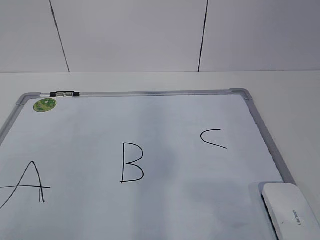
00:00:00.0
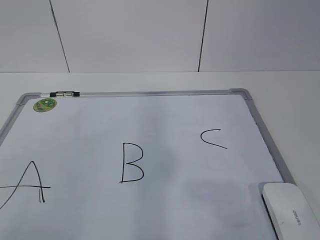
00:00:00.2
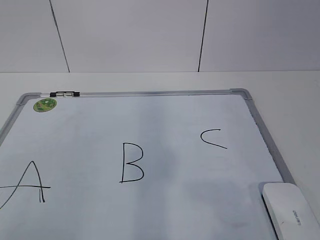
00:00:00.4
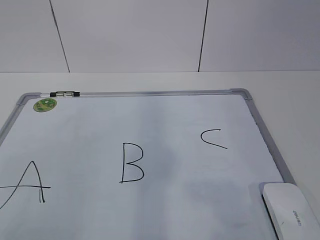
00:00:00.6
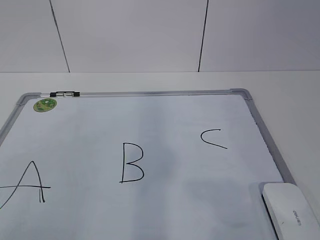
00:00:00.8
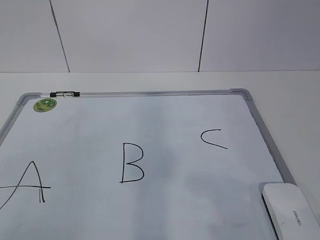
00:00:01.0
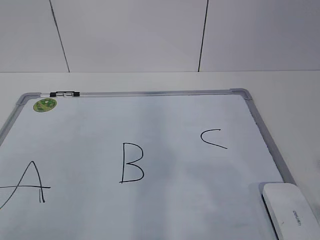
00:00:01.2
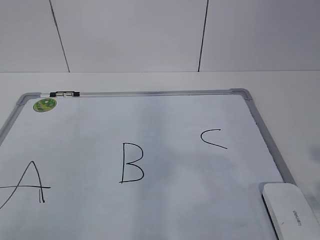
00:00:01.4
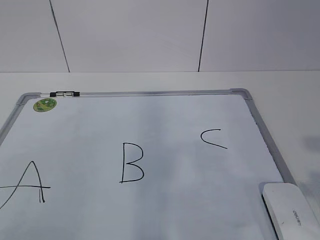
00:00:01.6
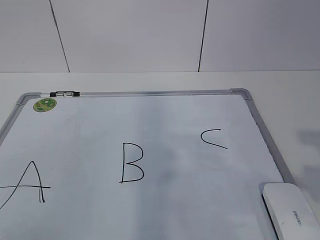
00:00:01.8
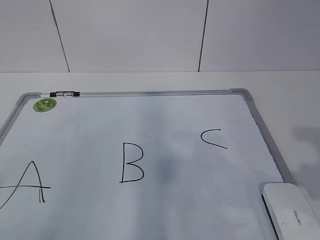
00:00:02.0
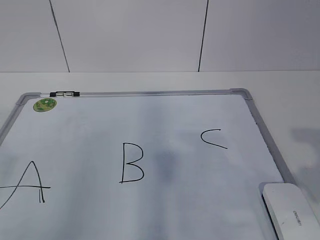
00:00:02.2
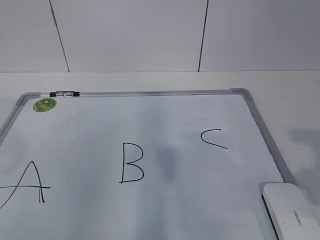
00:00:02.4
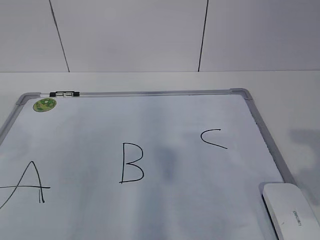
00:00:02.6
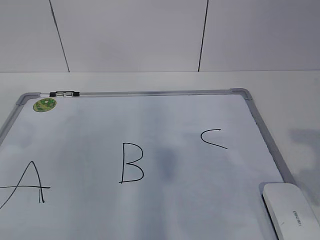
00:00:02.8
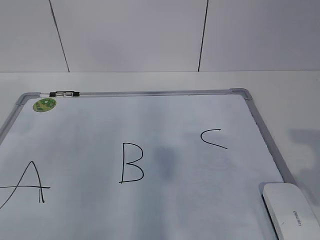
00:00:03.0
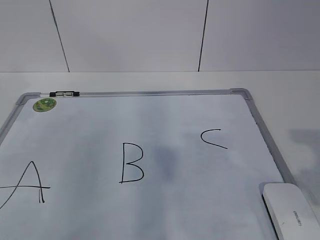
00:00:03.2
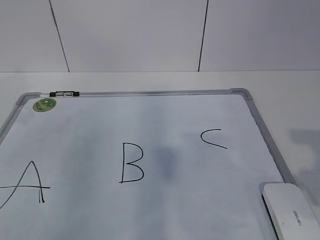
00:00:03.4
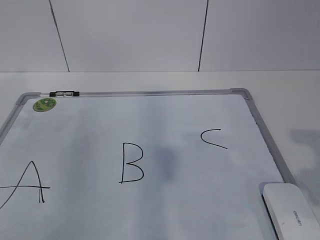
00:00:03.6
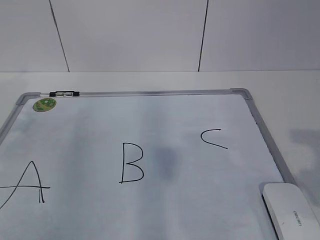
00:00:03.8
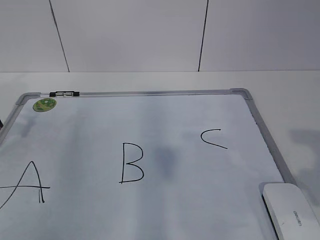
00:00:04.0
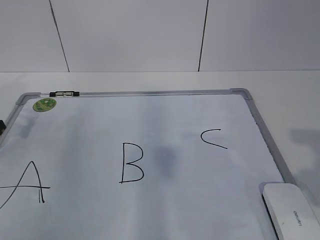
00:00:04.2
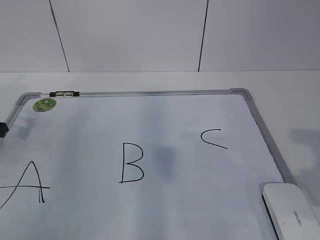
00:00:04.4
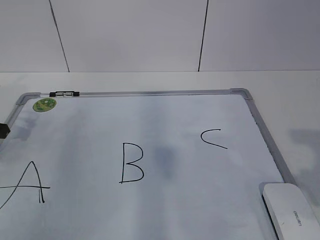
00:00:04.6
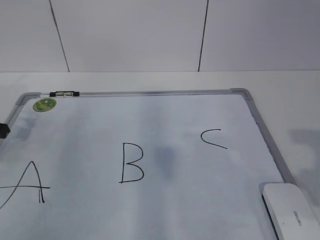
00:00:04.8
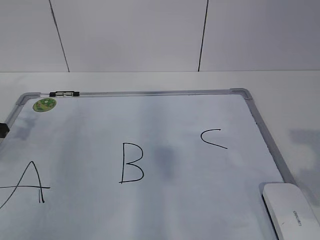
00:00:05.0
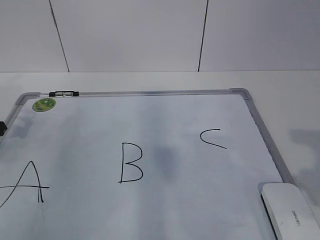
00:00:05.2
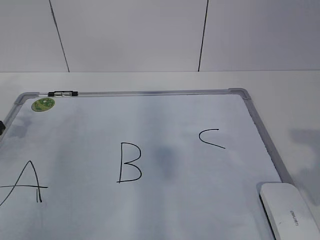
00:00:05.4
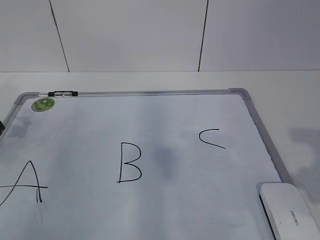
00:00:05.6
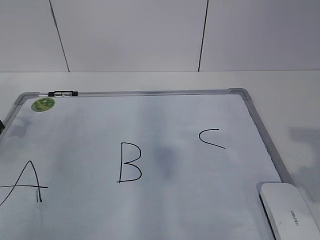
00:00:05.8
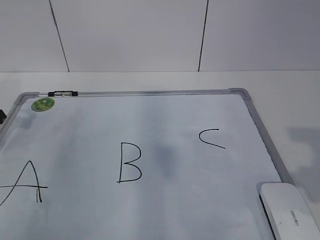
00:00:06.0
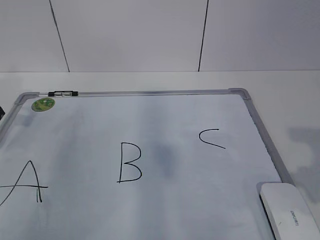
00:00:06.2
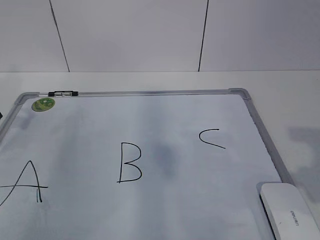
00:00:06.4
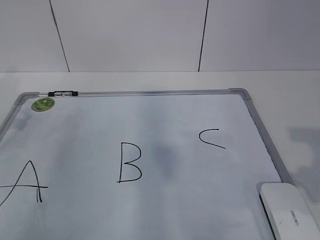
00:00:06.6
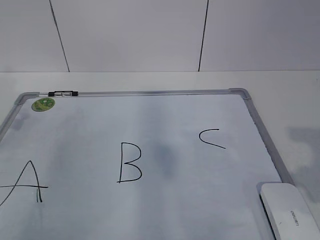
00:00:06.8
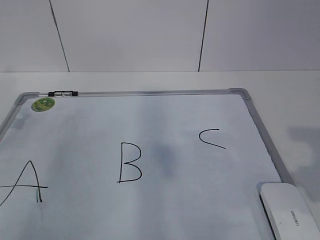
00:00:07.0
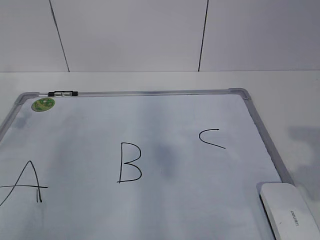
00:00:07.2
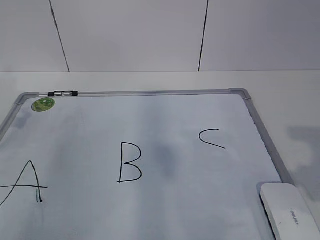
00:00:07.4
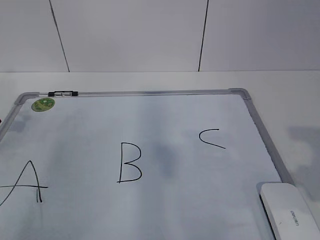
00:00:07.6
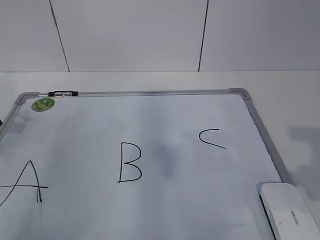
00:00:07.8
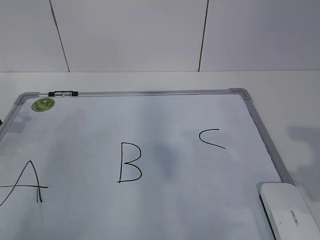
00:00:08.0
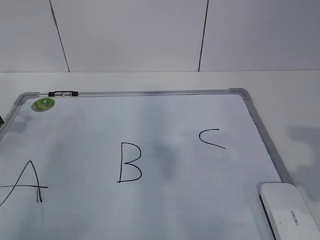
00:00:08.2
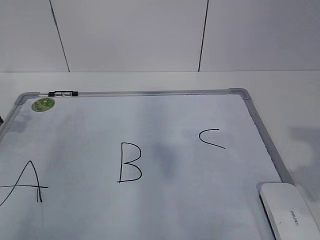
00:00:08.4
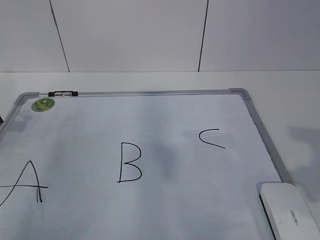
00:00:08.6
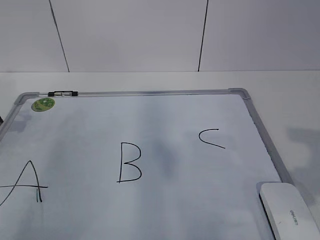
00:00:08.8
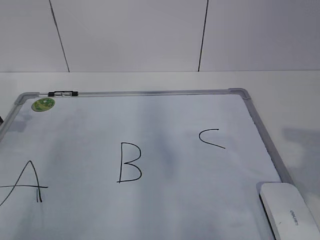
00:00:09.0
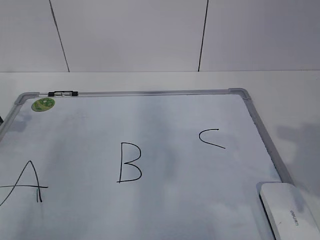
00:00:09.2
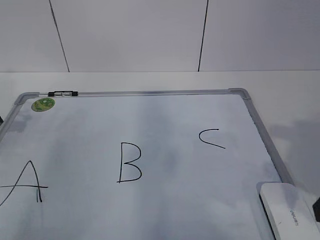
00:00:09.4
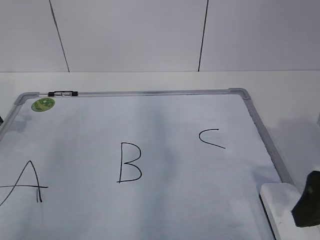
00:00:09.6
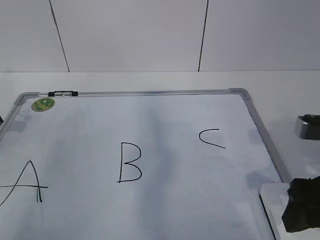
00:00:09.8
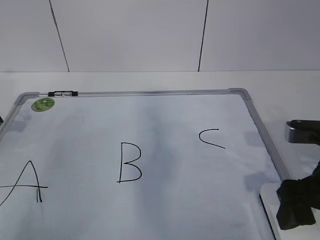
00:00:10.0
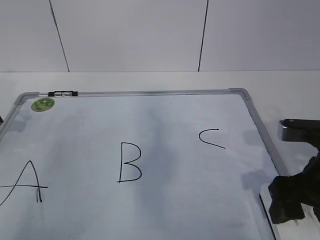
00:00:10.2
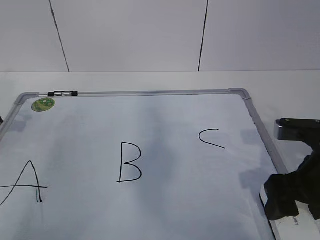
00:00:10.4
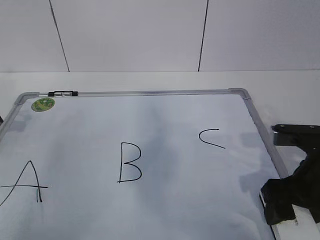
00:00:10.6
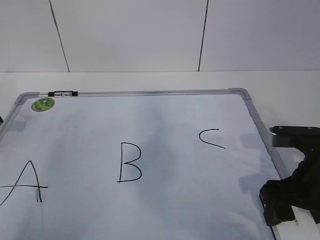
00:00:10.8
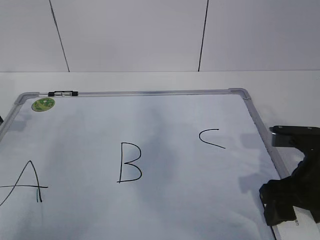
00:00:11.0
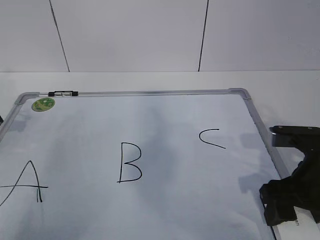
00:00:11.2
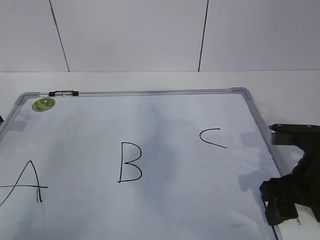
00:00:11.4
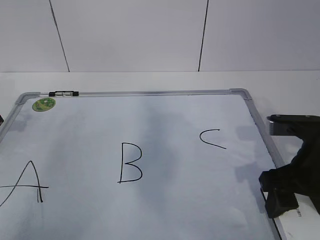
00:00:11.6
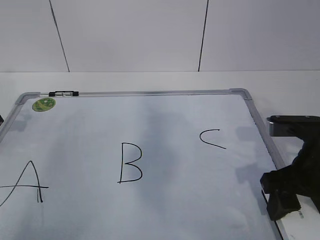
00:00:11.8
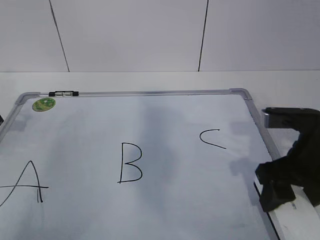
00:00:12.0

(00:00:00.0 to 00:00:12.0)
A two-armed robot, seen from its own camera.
Task of the whole recording: pick up the eraser on the blackboard and erase the letter "B".
Step, 00:00:00.0 - 00:00:06.8: Hold the drawing board steady with your left hand.
00:00:01.6 - 00:00:03.0: The left gripper is displaced forward by some 25 cm.
00:00:03.0 - 00:00:04.4: The left gripper heads downward and forward, covering approximately 15 cm.
00:00:04.4 - 00:00:06.0: The grippers make only small movements.
00:00:09.0 - 00:00:10.4: The right gripper goes roughly 15 cm forward, downward and to the left, and opens its fingers.
00:00:10.4 - 00:00:12.0: The right gripper closes up.

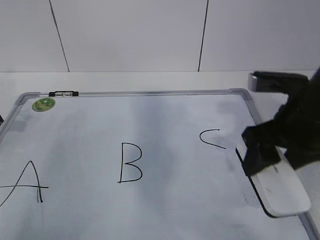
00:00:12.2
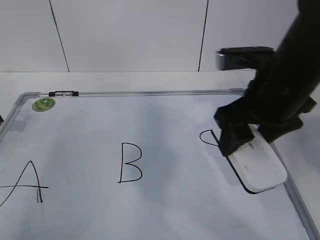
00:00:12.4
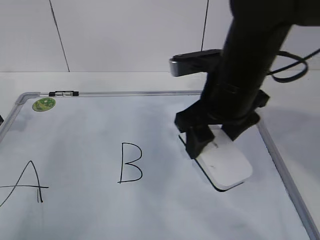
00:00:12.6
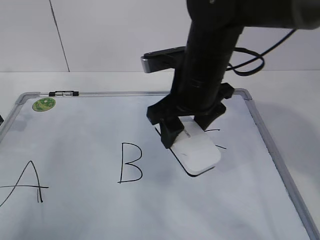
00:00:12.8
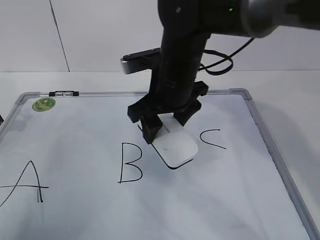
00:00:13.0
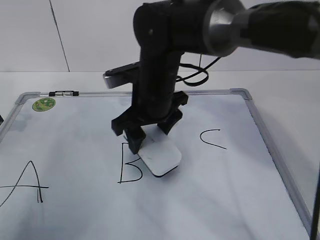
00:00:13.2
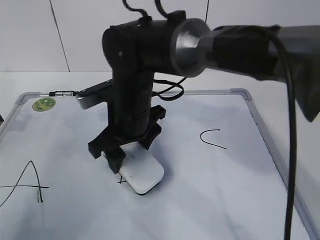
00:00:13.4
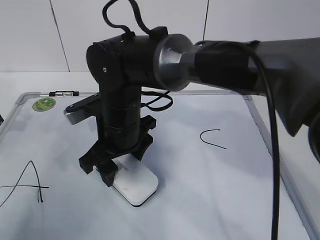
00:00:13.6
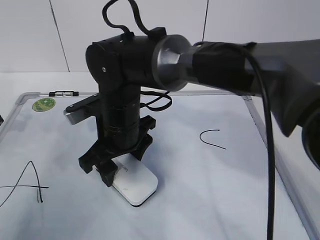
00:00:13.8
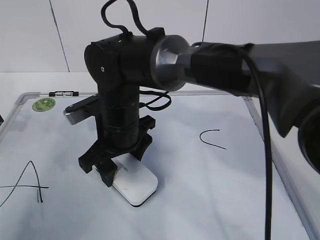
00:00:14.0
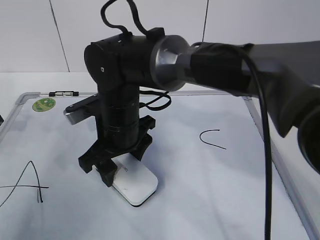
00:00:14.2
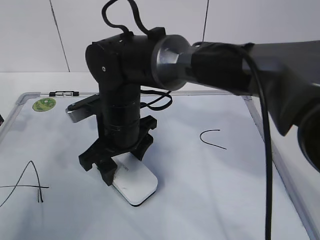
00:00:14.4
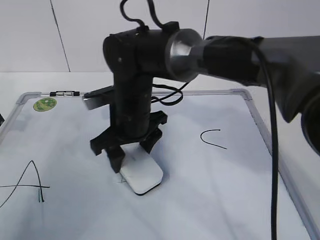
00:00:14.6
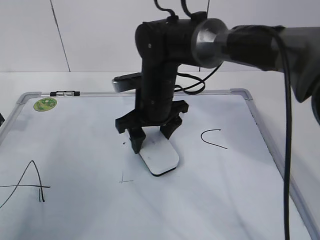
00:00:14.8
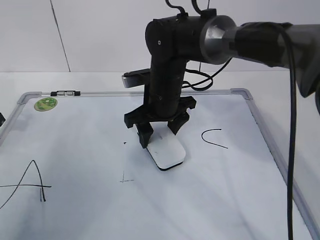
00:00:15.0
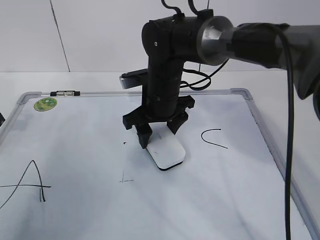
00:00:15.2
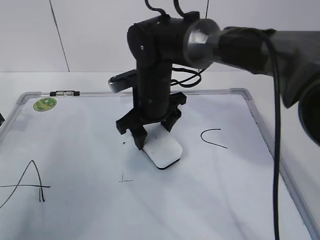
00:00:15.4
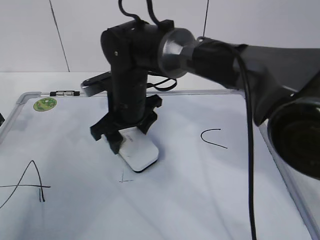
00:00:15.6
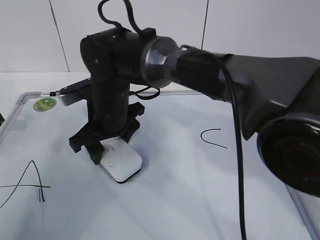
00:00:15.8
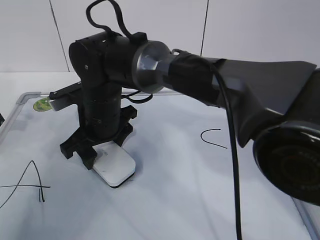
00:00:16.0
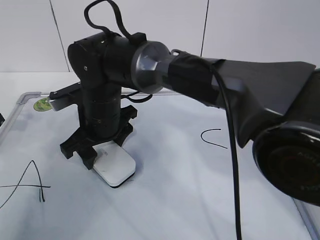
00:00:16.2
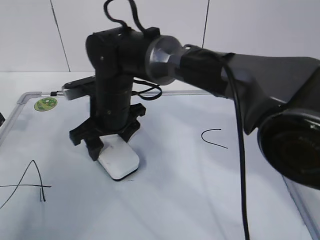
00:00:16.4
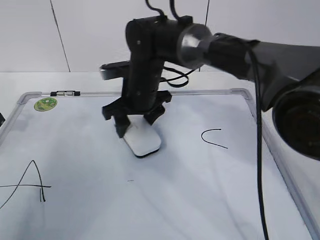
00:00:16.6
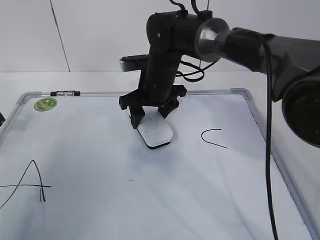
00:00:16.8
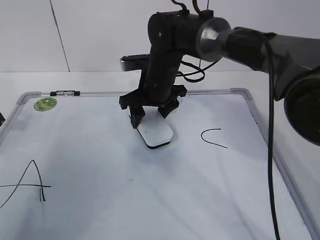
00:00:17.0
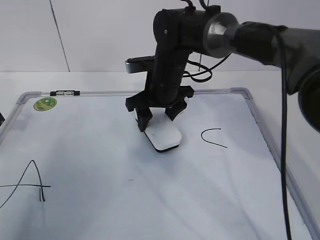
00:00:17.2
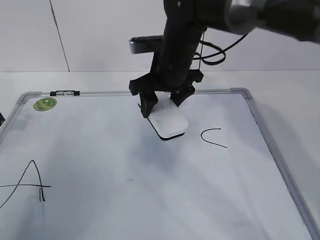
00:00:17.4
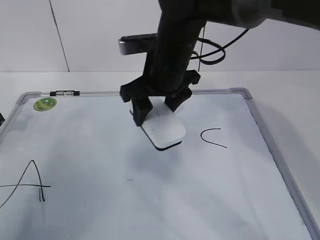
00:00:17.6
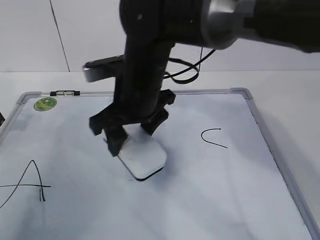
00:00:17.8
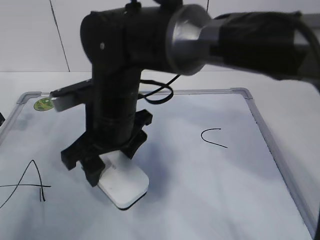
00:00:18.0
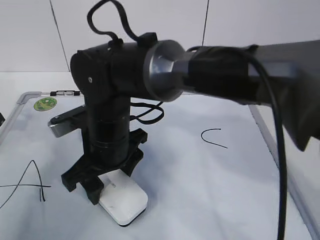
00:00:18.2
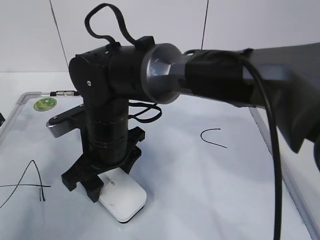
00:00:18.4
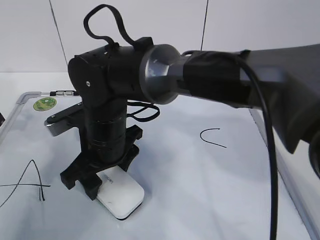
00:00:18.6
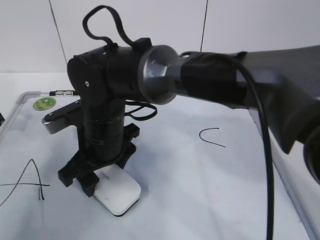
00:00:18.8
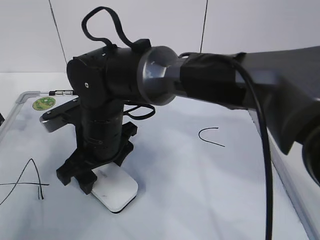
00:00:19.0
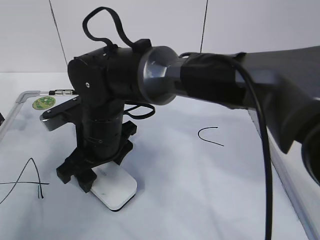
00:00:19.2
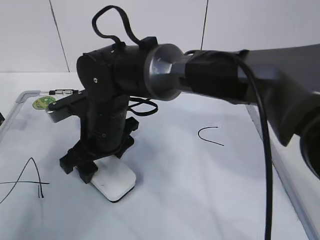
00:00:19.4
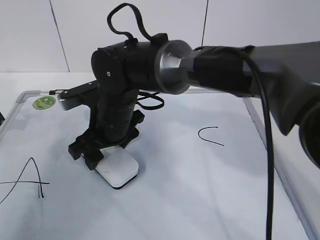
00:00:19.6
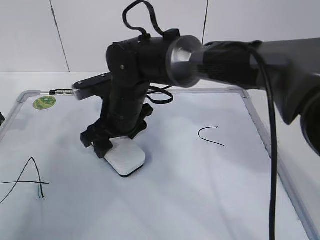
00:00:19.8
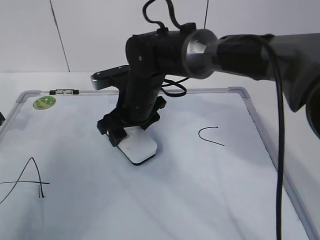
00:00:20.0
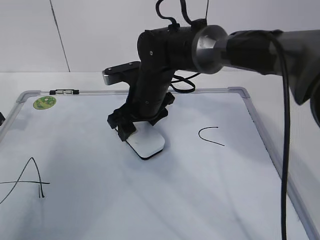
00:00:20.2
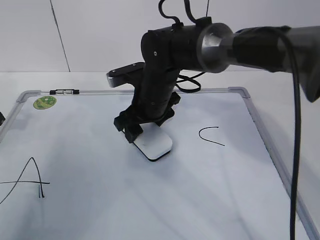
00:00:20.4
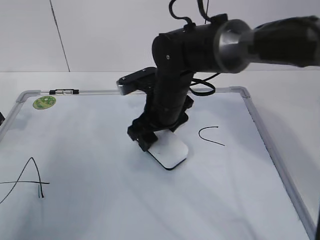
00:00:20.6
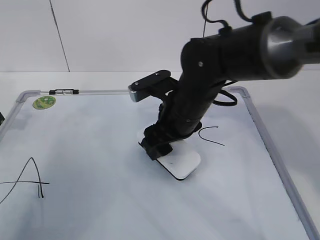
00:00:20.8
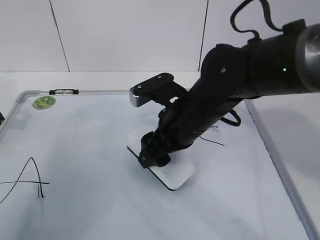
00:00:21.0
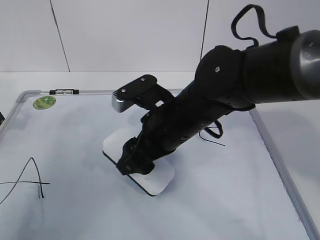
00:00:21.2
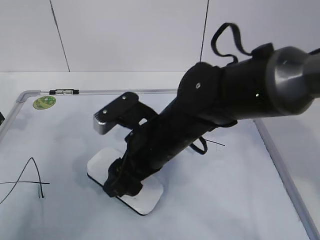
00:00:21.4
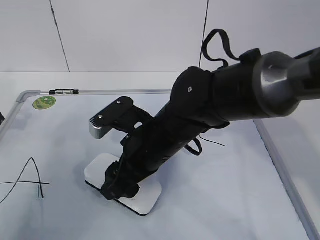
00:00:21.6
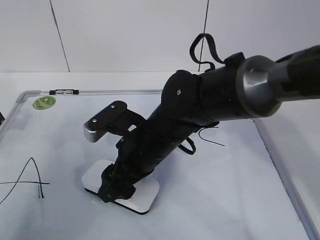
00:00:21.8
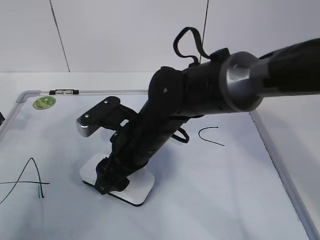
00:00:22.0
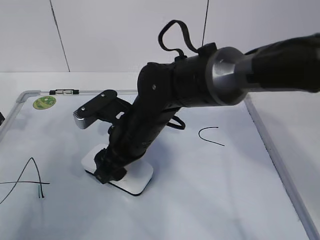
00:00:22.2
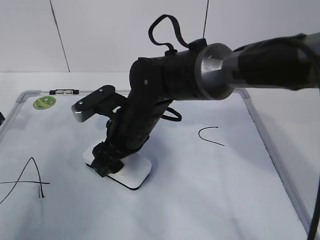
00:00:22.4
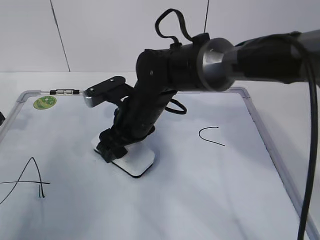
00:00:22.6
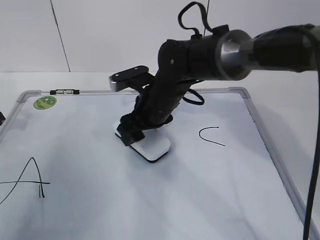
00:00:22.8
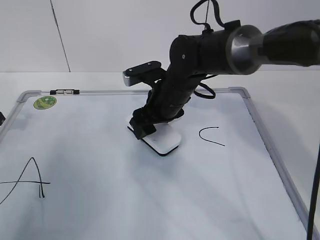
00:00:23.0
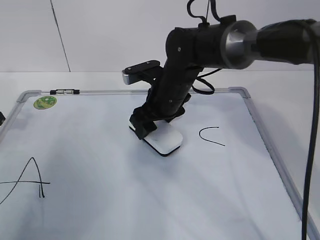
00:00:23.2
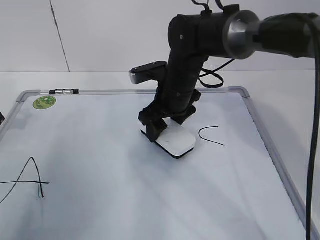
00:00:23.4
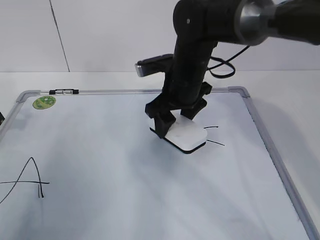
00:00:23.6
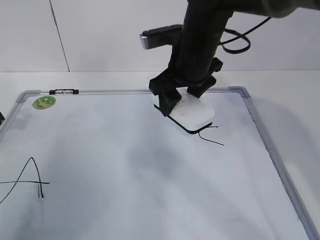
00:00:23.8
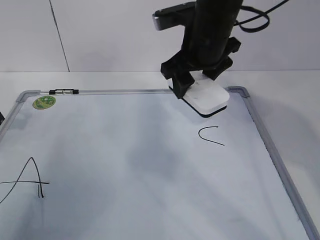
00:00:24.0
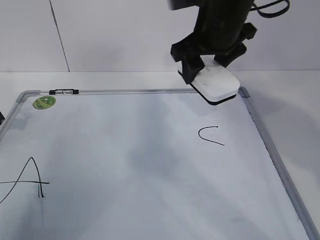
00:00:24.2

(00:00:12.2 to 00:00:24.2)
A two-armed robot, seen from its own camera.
Task of the whole recording: pick up the eraser on the blackboard and erase the letter "B".
Step, 00:00:12.2 - 00:00:16.8: Erase the letter B with your right hand.
00:00:12.2 - 00:00:13.8: The right gripper goes roughly 25 cm to the left.
00:00:13.8 - 00:00:15.2: The right gripper goes some 10 cm to the right and forward.
00:00:16.6 - 00:00:18.2: The right gripper moves backward, some 10 cm.
00:00:18.2 - 00:00:19.8: The right gripper heads forward, covering roughly 5 cm.
00:00:19.8 - 00:00:21.2: The right gripper moves to the right and backward, about 10 cm.
00:00:21.2 - 00:00:22.6: The right gripper travels forward by some 5 cm.
00:00:22.6 - 00:00:24.2: The right gripper is displaced upward and to the right by approximately 20 cm.
